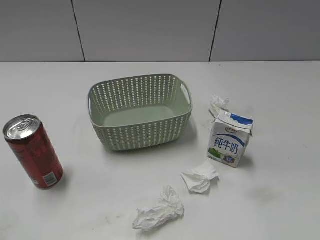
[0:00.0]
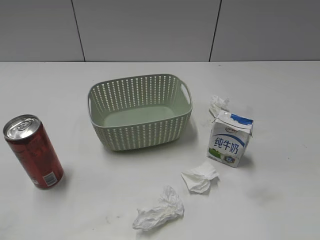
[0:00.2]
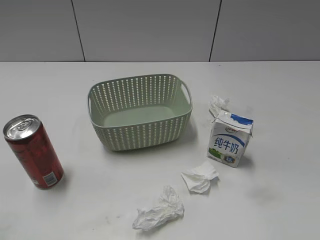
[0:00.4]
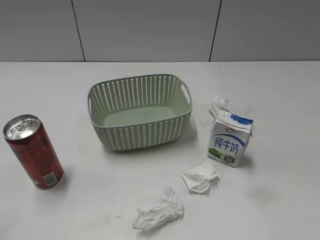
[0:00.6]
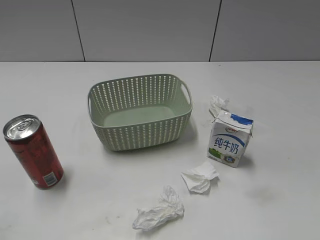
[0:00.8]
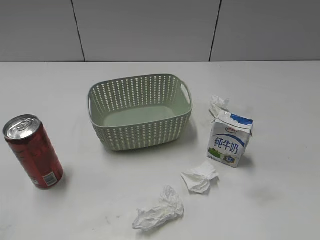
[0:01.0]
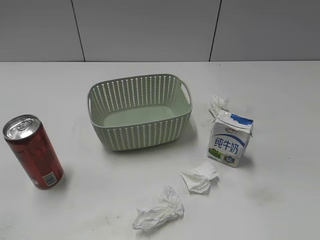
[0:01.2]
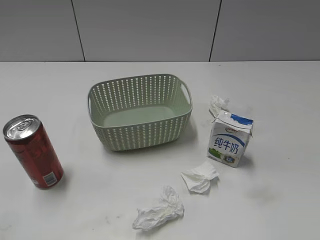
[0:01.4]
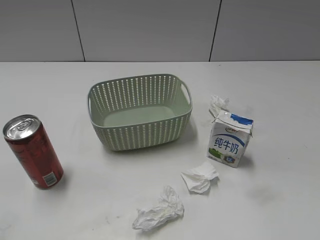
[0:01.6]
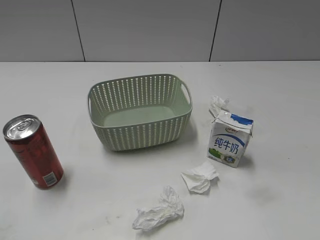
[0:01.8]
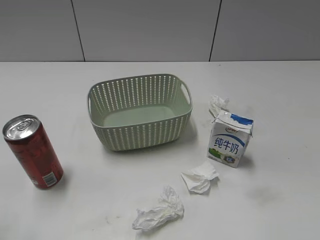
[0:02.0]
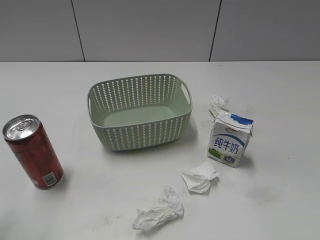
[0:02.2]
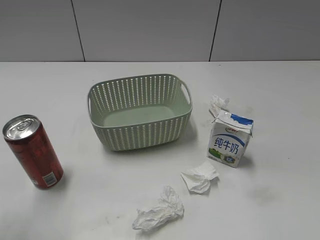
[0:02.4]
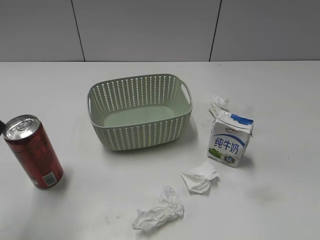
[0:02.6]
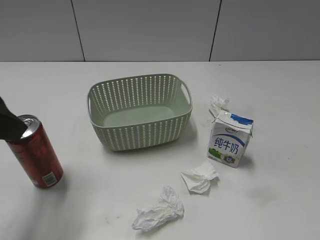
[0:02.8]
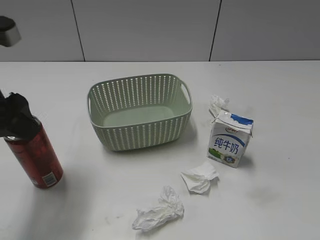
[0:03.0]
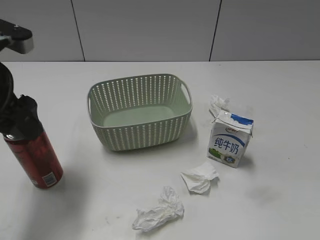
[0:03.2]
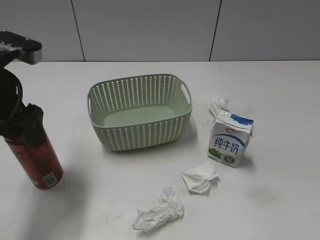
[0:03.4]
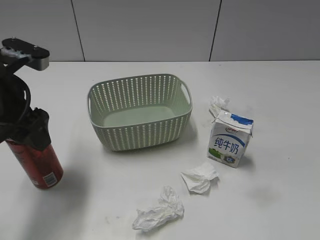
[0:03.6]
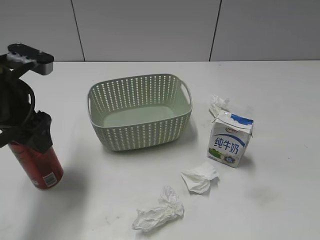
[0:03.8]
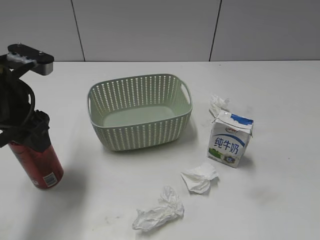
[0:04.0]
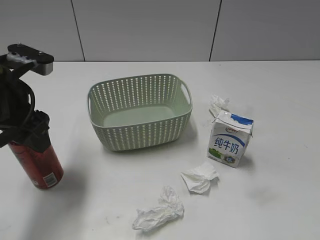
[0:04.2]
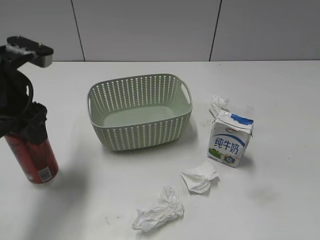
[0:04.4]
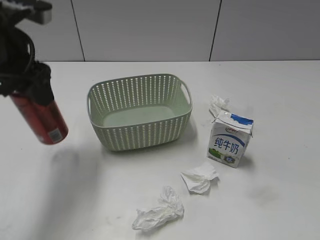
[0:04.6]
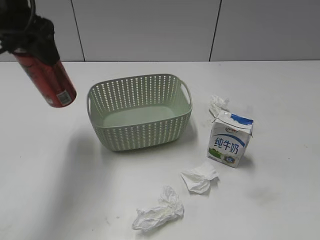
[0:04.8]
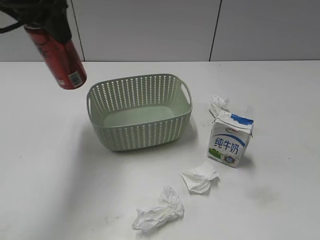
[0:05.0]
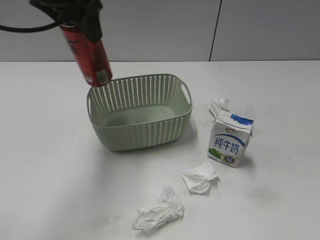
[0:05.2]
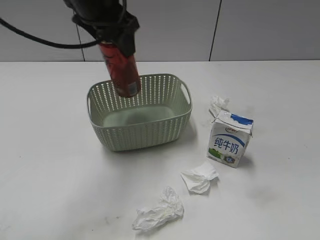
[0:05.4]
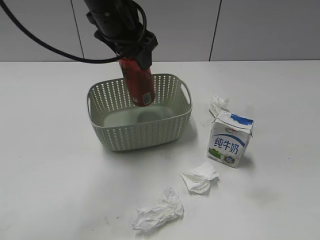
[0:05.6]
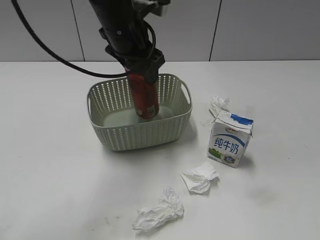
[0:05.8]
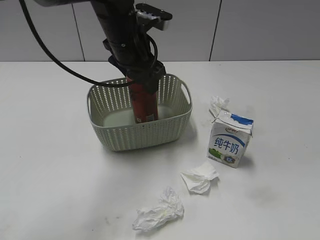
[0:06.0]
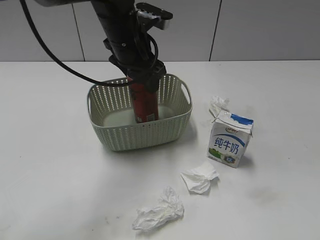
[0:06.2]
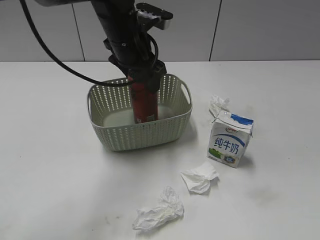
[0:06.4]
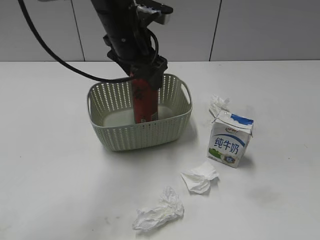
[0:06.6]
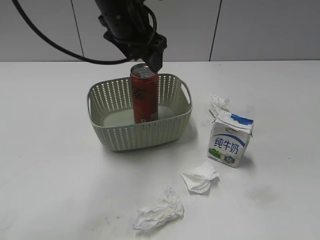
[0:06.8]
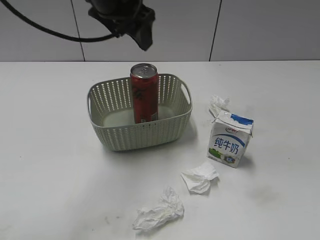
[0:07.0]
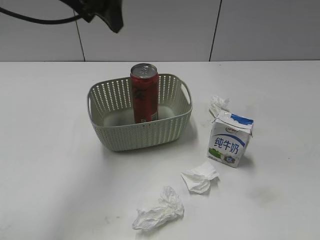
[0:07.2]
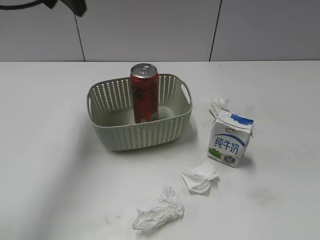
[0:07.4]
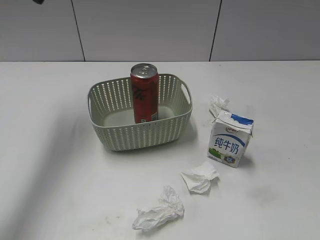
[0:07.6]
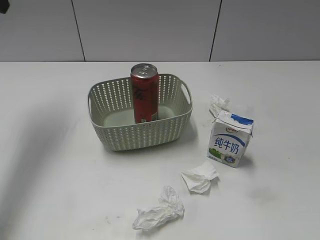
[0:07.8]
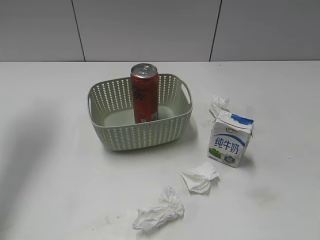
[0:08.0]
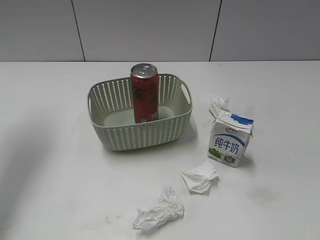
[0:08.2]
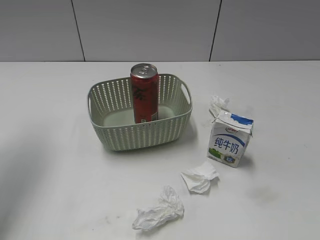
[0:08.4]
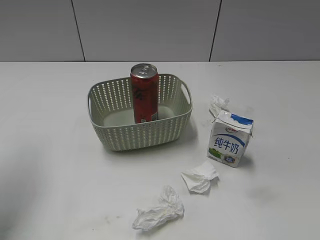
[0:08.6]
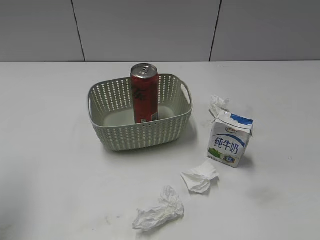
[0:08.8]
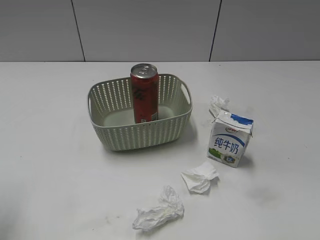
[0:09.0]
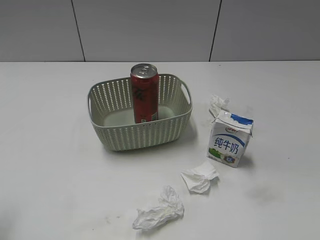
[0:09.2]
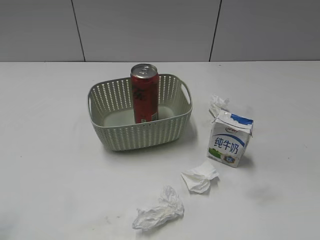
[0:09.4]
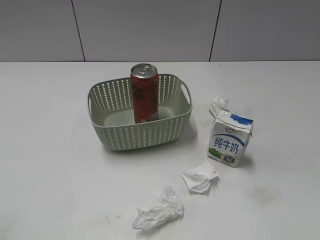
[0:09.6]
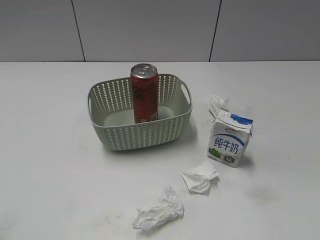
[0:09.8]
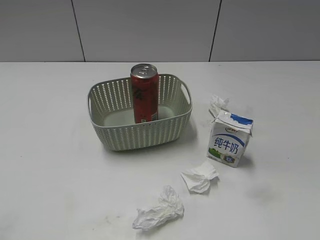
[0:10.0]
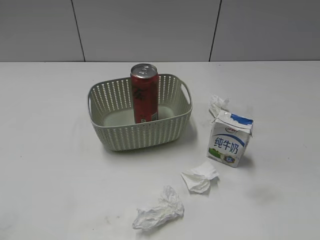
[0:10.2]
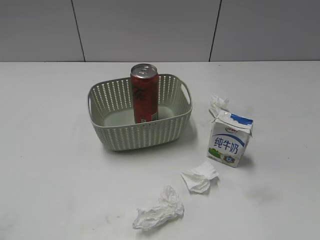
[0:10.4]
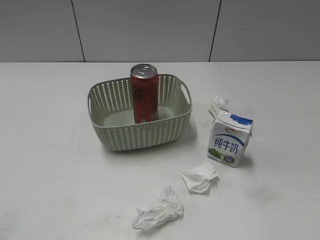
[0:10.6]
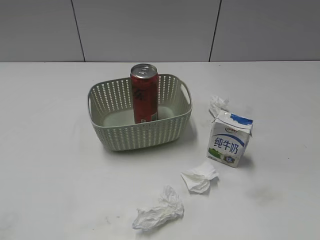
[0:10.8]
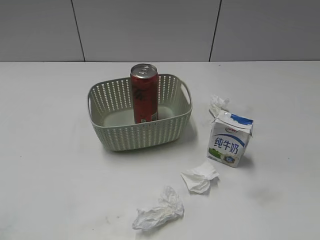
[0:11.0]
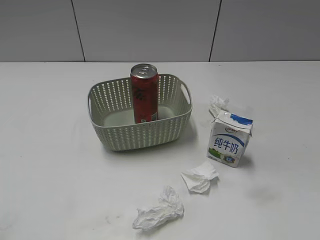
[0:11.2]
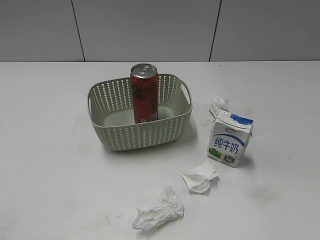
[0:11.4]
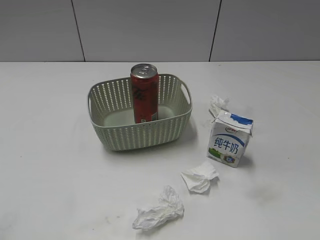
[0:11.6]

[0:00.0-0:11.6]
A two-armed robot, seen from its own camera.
Step, 0:02.6 to 0:04.2: Grasp the cola can with left gripper.
Step, 0:04.4 to 0:06.8: Place the cola can in the basket with left gripper.
0:01.4 to 0:02.8: The left gripper heads forward and to the right, covering approximately 20 cm, and opens.
0:02.8 to 0:04.4: The left gripper travels forward and downward by roughly 10 cm, and closes its fingers.
0:04.4 to 0:05.8: The left gripper travels to the right and forward by approximately 20 cm.
0:05.8 to 0:07.2: The left gripper heads upward, covering some 10 cm, and opens.
0:07.2 to 0:08.8: The left gripper shifts roughly 25 cm to the left and backward.
0:08.8 to 0:10.2: The left gripper travels backward by some 20 cm.

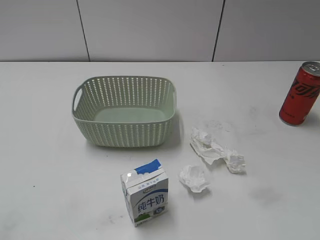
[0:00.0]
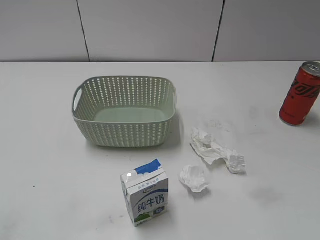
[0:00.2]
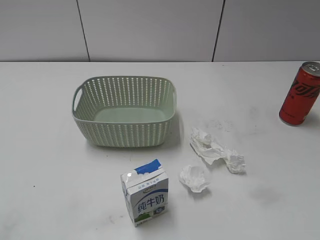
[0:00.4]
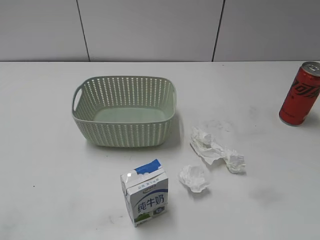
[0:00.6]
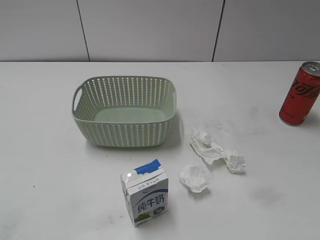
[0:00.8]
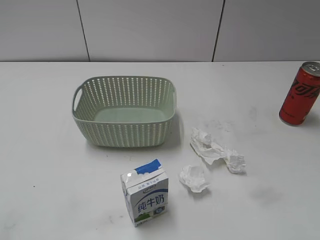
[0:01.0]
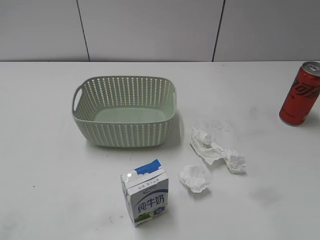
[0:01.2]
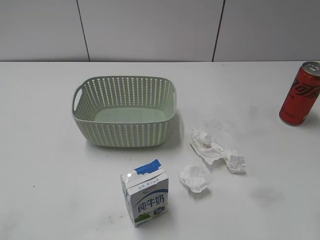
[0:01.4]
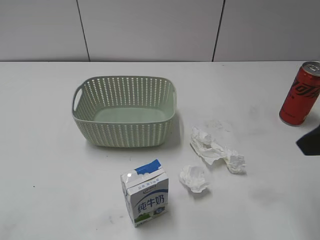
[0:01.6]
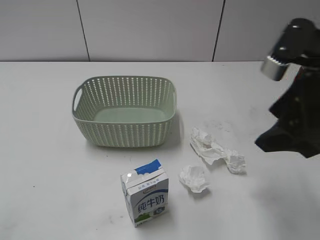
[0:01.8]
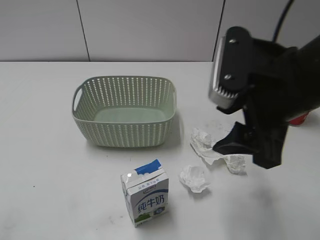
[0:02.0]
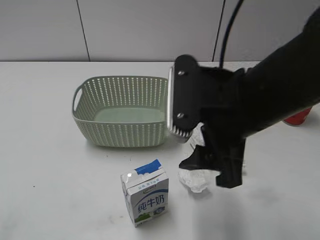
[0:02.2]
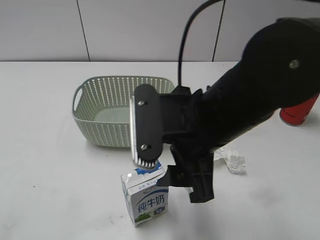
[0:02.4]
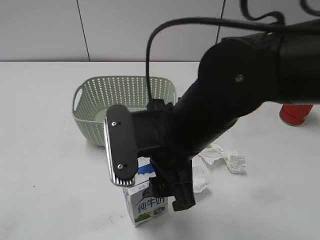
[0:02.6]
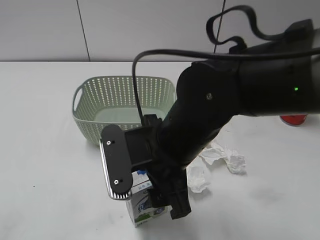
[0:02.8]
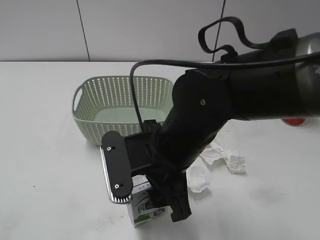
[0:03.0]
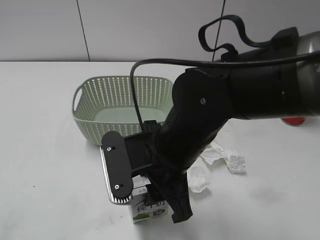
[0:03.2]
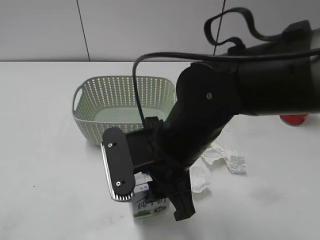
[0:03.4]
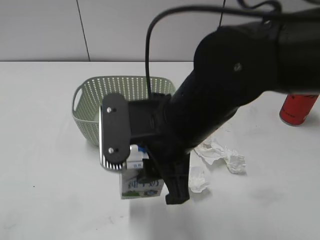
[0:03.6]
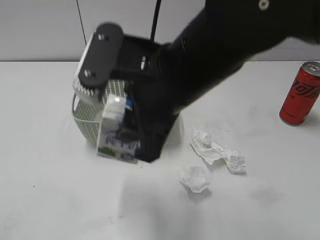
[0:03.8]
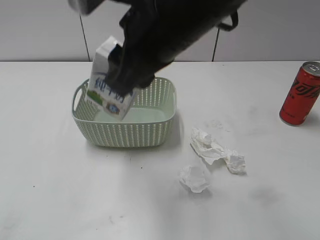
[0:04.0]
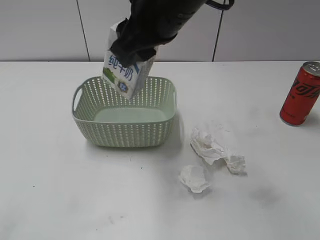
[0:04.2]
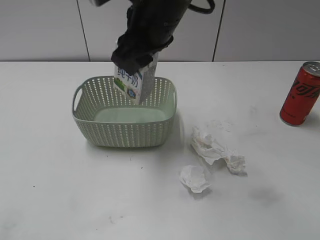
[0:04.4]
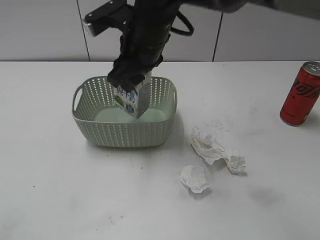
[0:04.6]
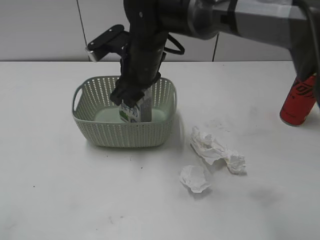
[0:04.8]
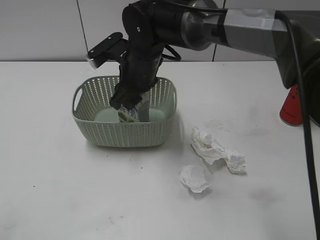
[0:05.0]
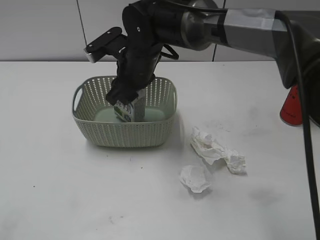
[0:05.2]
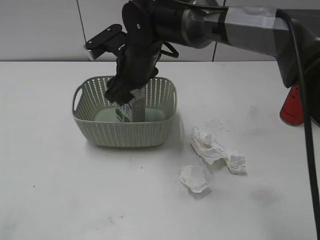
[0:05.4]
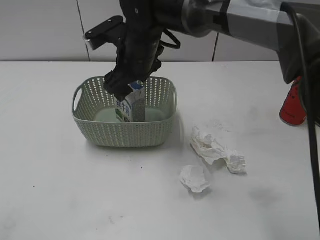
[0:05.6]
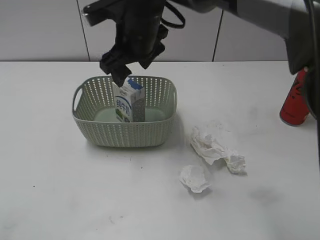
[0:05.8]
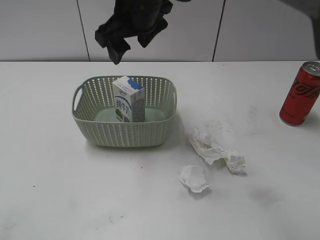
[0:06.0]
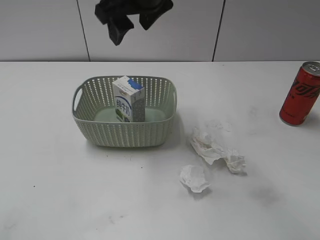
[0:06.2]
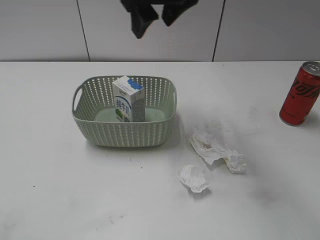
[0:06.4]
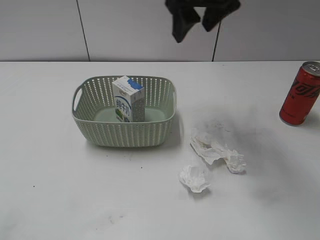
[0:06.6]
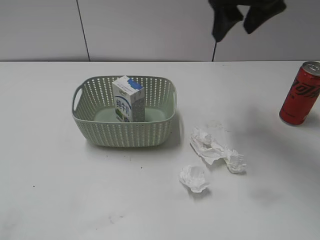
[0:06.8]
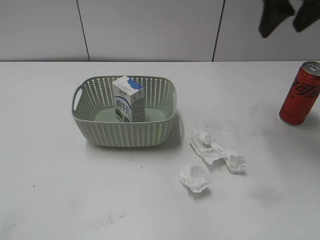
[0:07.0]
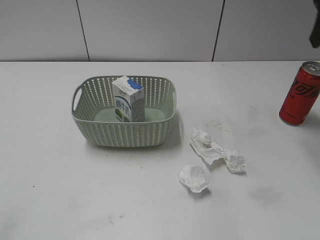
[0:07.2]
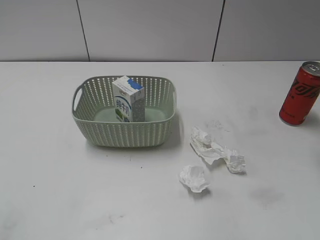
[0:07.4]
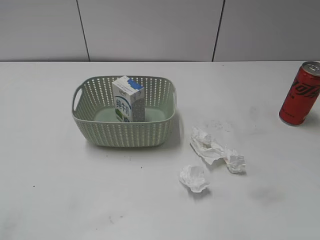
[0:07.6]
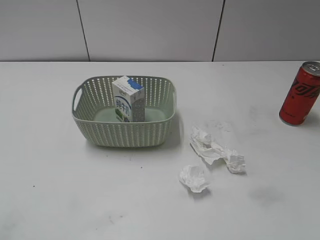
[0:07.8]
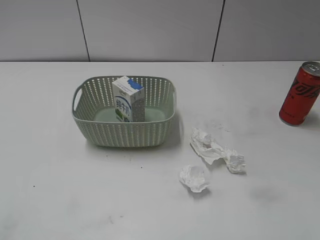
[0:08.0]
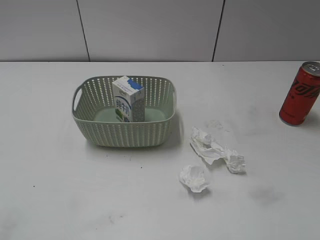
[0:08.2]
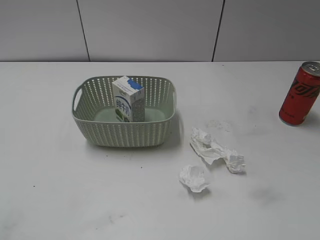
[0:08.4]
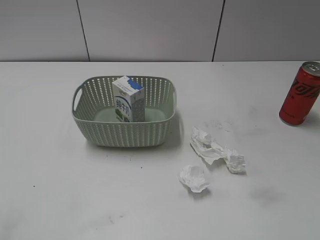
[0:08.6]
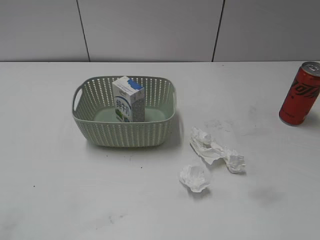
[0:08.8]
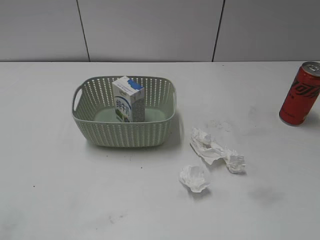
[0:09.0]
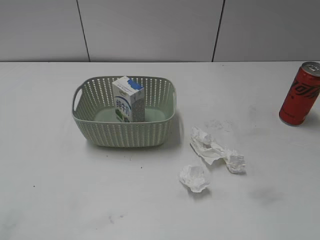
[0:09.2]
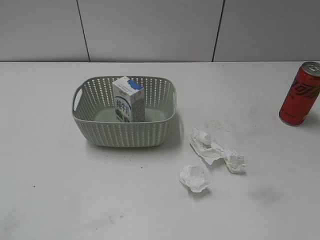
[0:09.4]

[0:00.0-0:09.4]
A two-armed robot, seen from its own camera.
Step, 0:01.6 to 0:03.2: Grasp the milk with right gripper.
Step, 0:03.4 to 0:06.0: Place the milk in the basket with right gripper.
0:01.6 to 0:03.2: The right gripper heads to the left and downward, covering some 25 cm, and closes up. Meanwhile the left gripper closes up.
0:03.2 to 0:04.8: The right gripper is displaced forward by approximately 15 cm.
0:04.8 to 0:06.2: The right gripper shifts some 15 cm upward, and opens its fingers.
0:06.2 to 0:07.8: The right gripper shifts about 35 cm to the right and backward.

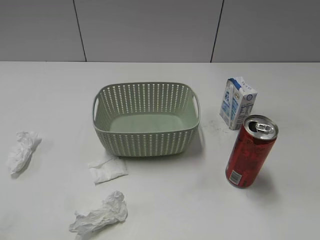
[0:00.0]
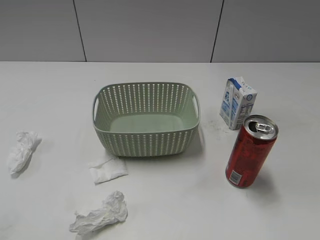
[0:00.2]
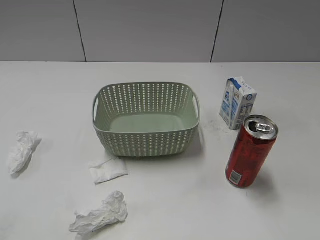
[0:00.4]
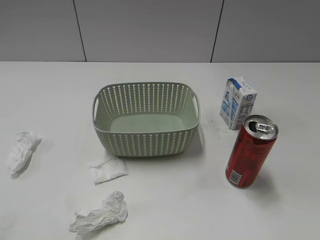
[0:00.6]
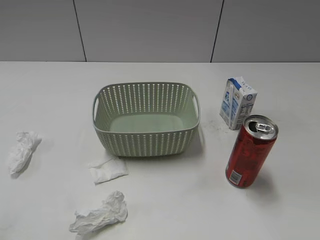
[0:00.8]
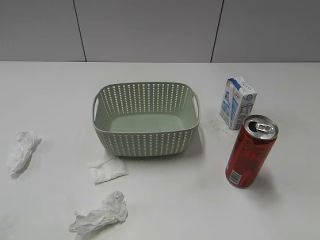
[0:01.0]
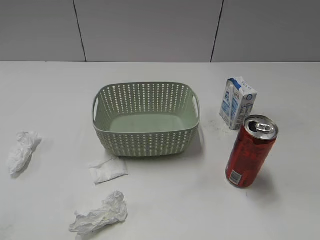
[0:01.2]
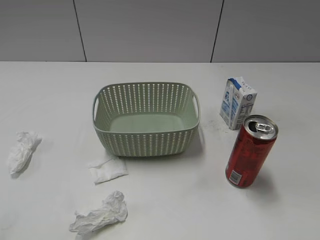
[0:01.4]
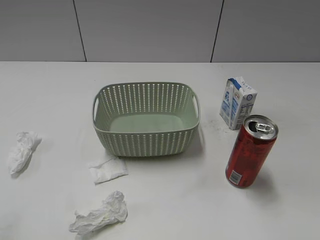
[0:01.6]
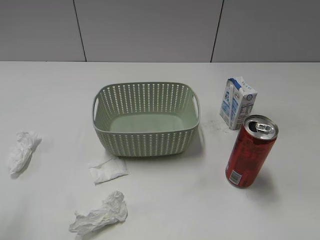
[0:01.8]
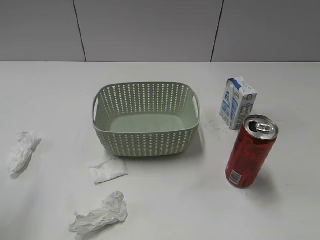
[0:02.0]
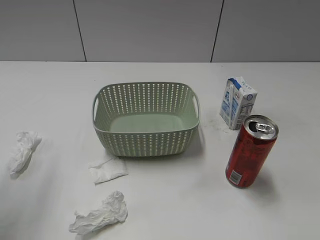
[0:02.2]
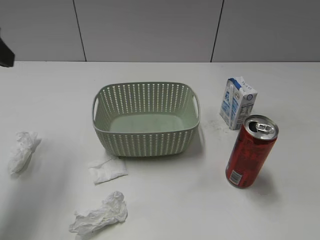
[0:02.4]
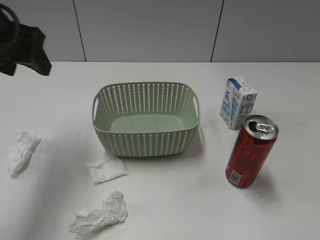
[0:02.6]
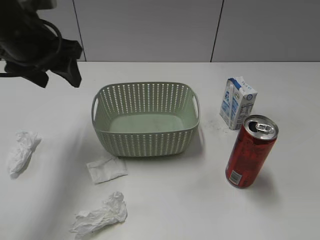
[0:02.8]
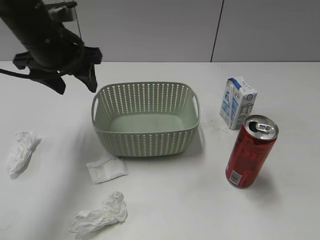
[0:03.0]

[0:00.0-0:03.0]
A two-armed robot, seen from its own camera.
0:01.6 to 0:03.0: The left gripper is displaced forward and to the right by some 30 cm.
